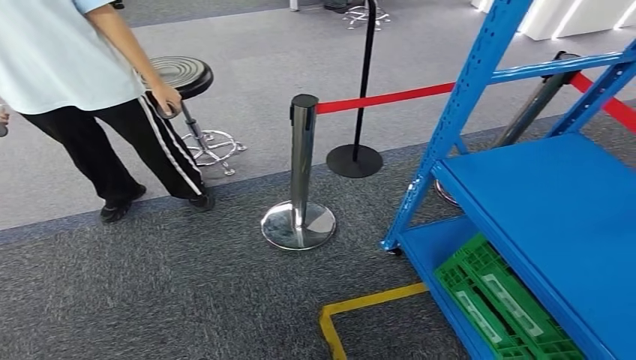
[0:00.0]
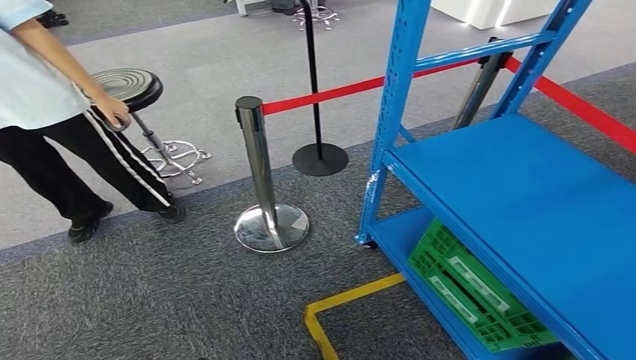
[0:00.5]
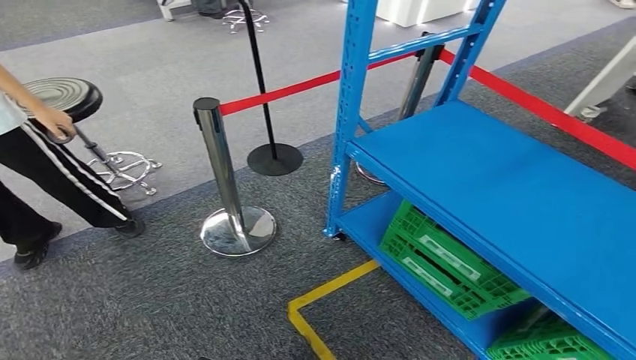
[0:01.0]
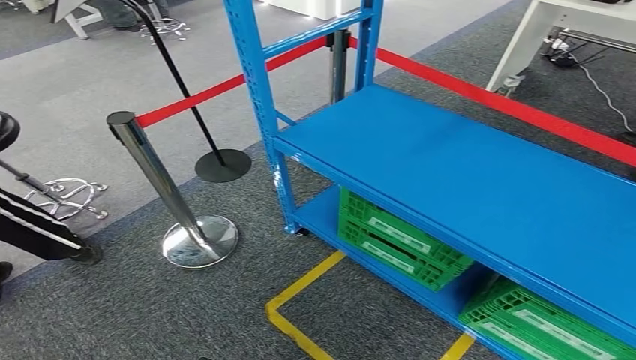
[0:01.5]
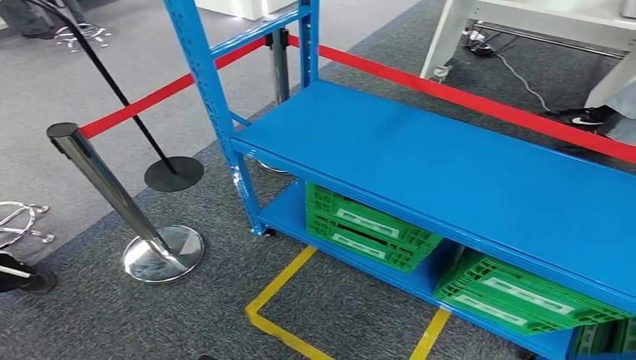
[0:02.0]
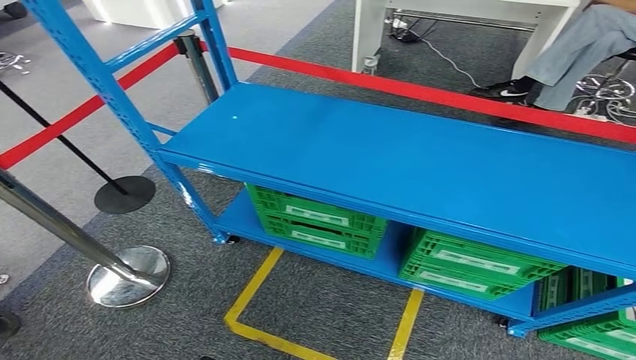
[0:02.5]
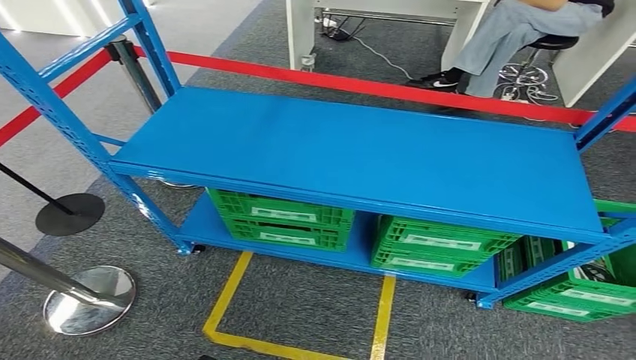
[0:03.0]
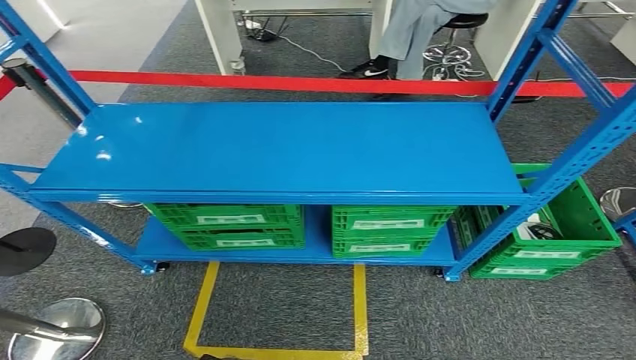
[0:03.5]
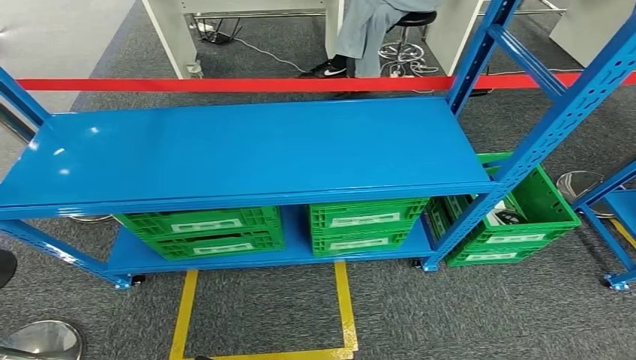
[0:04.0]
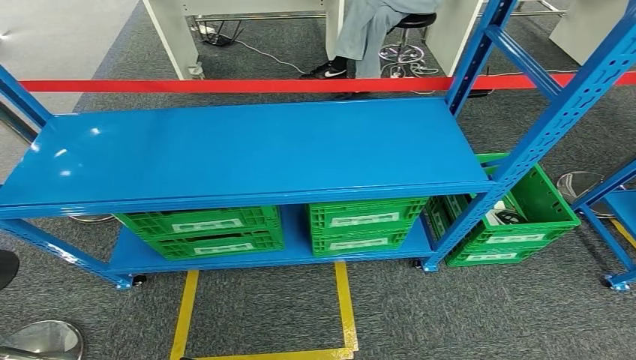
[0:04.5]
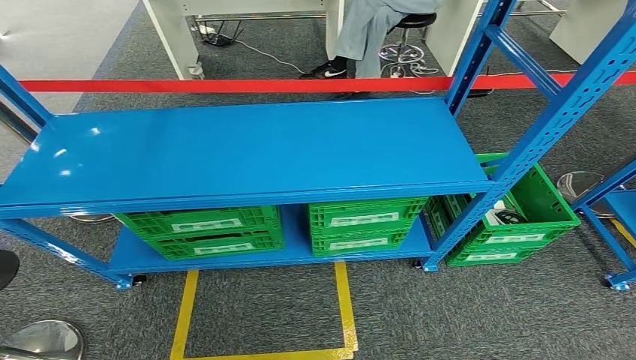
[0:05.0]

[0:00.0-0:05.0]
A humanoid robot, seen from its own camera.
Step, 0:00.0 to 0:05.0: Move to the initial position of the workbench.
